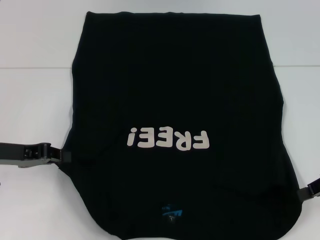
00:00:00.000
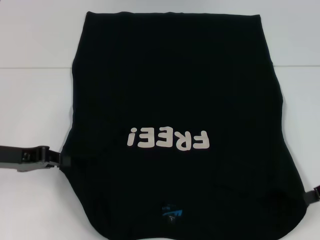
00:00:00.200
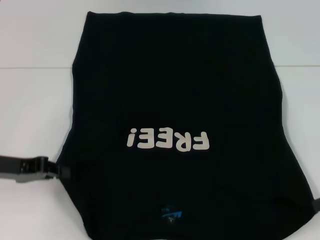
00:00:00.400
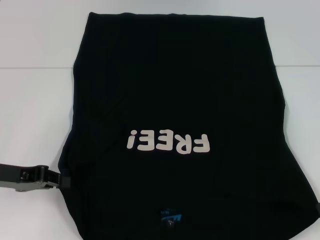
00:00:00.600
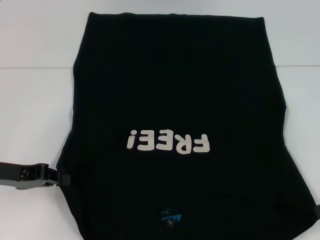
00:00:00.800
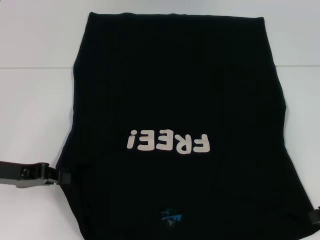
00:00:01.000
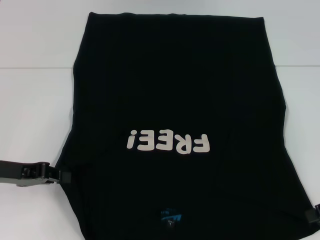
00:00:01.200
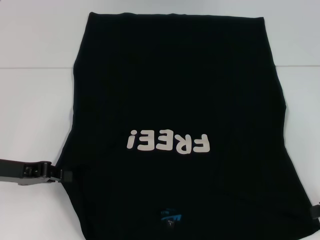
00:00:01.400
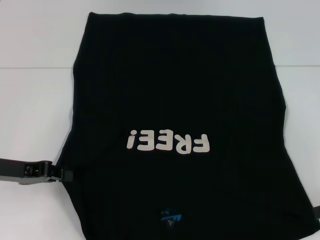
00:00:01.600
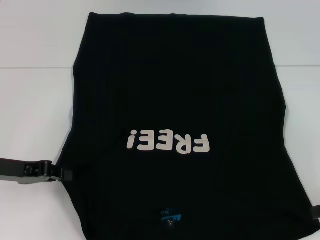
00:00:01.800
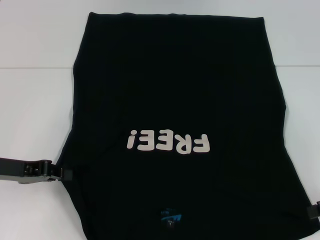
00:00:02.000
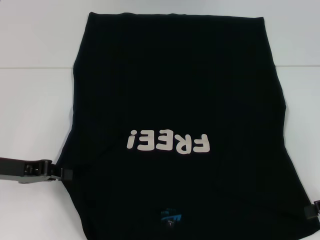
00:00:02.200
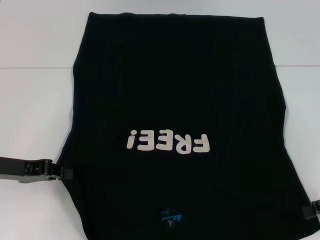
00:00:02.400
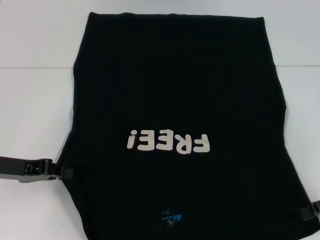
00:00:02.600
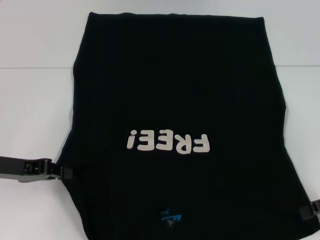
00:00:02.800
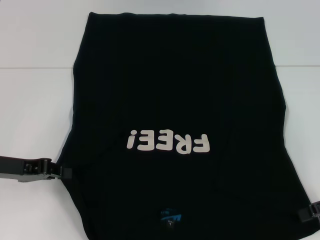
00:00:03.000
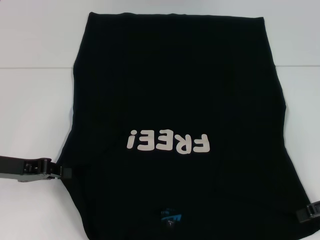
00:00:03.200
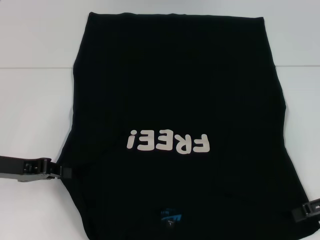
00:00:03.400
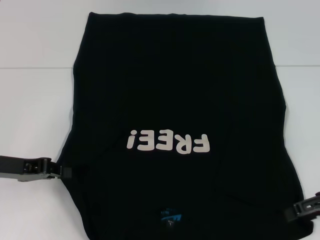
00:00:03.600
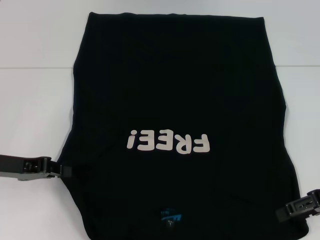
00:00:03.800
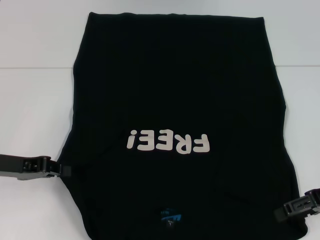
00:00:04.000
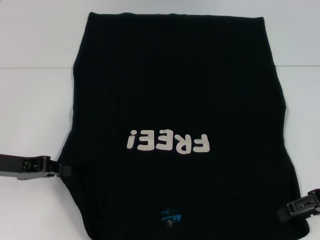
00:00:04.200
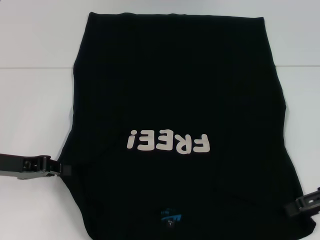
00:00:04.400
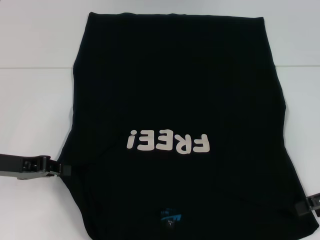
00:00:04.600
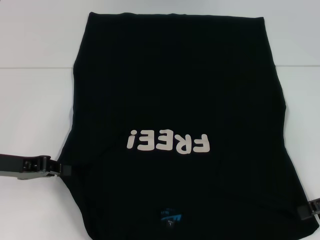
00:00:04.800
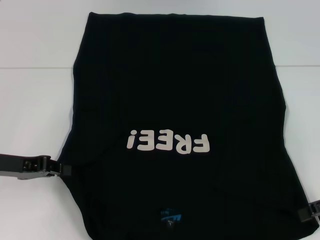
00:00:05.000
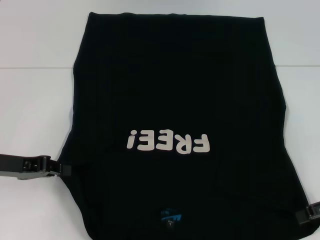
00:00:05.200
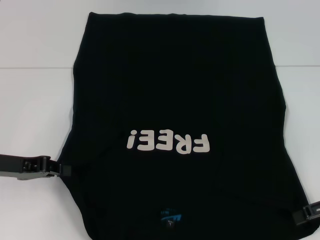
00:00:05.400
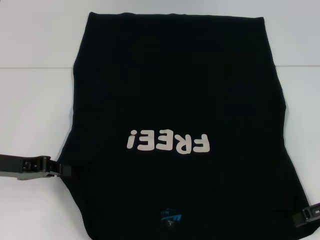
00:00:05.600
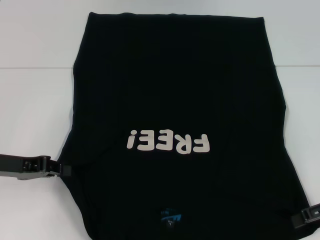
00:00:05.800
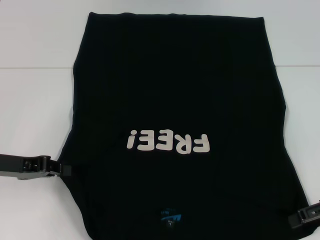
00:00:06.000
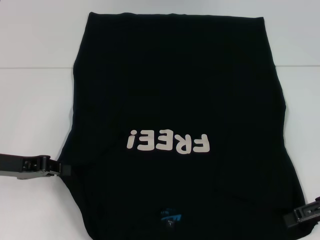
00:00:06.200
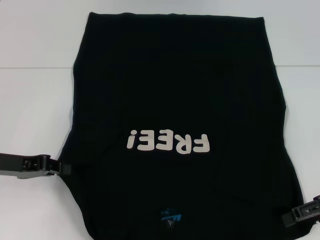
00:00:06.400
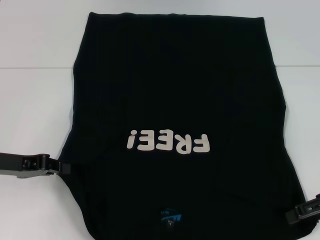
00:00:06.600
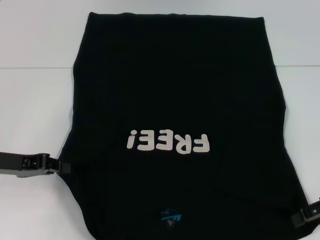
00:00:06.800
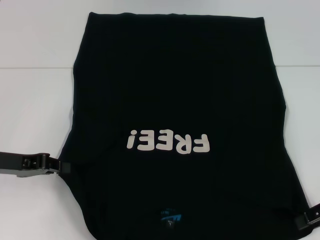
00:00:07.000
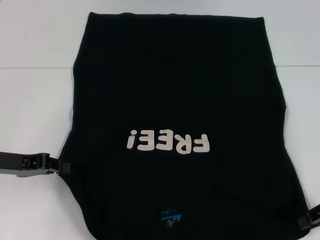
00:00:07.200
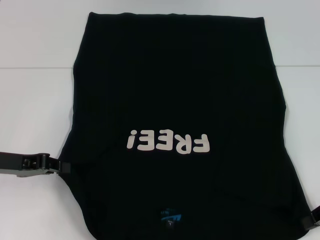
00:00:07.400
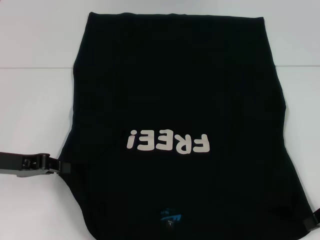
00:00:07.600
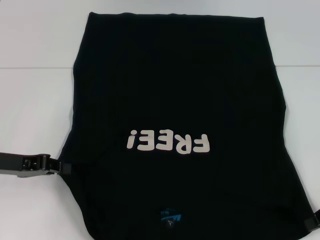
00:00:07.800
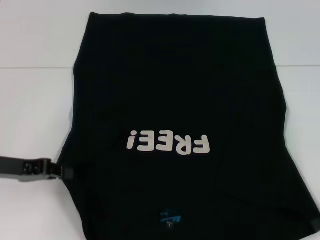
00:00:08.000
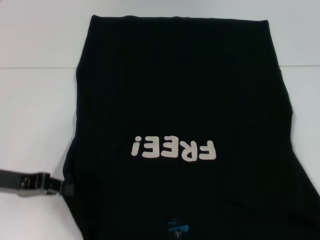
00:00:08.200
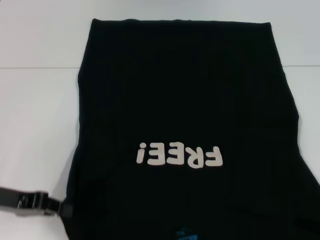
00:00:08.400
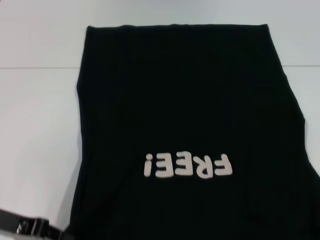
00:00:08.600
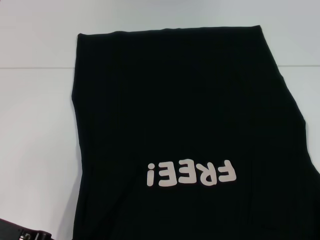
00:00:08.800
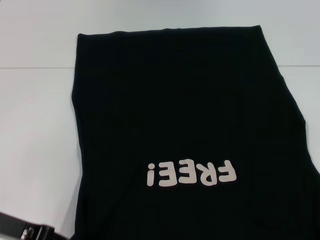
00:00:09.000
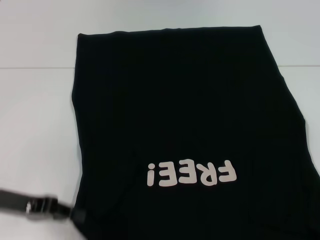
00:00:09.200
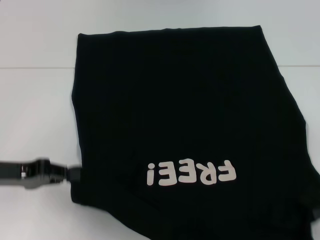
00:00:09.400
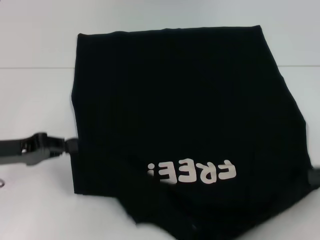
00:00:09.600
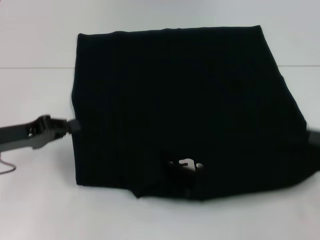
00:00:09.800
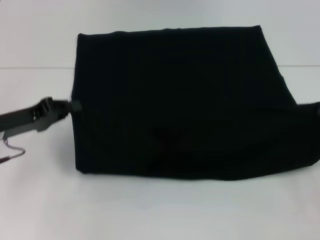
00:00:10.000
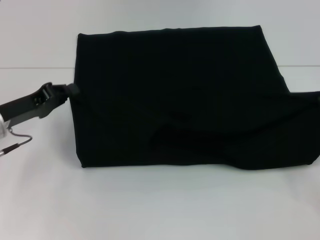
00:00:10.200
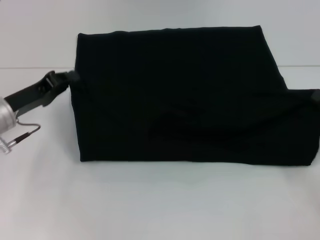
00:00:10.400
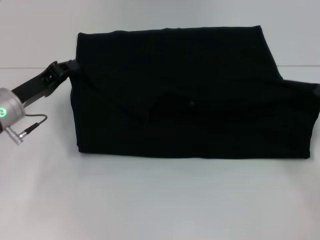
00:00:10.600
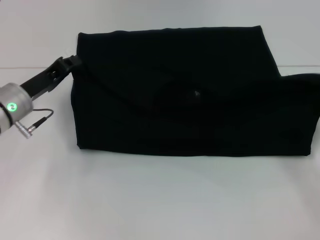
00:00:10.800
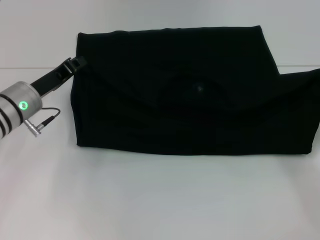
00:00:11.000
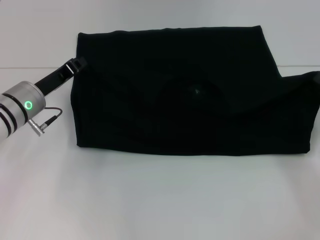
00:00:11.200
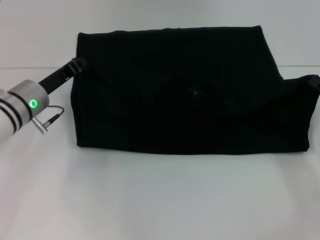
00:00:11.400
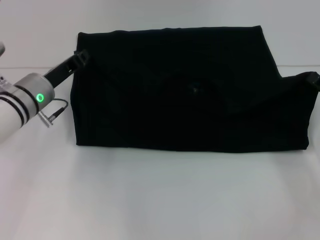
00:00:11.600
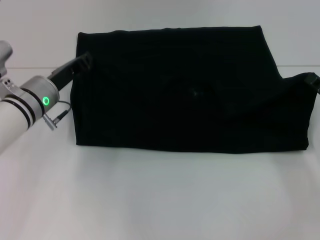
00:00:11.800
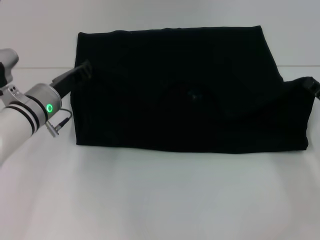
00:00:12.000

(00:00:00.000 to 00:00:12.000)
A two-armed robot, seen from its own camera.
Step, 00:00:00.000 - 00:00:07.800: Grab the bottom right corner with your right hand.
00:00:00.000 - 00:00:01.600: The right gripper ends up about 5 cm from where it was, and opens up.
00:00:01.600 - 00:00:03.000: The grippers make only small movements.
00:00:03.000 - 00:00:04.400: The grippers move only a little.
00:00:07.600 - 00:00:09.000: The left gripper travels backward by about 5 cm.
00:00:09.000 - 00:00:10.400: The left gripper shifts approximately 10 cm forward, while the right gripper shifts some 5 cm downward.
00:00:10.400 - 00:00:12.000: The left gripper moves to the right, some 5 cm. The right gripper shifts by some 5 cm.

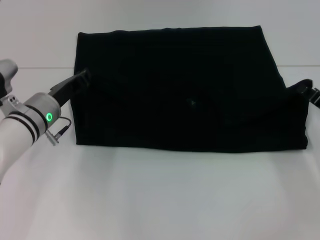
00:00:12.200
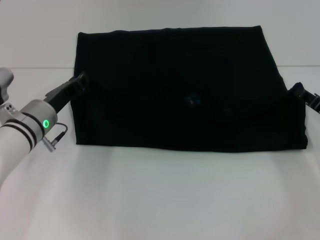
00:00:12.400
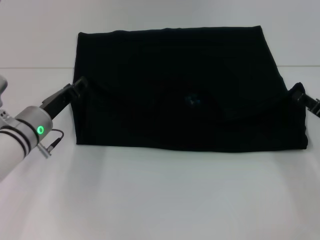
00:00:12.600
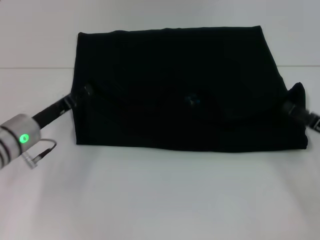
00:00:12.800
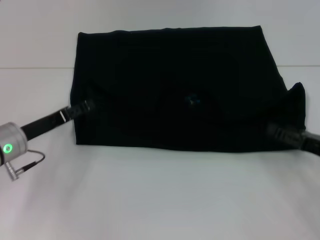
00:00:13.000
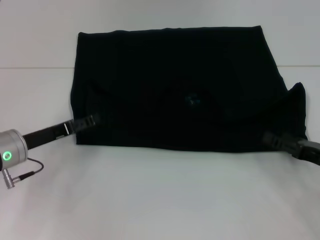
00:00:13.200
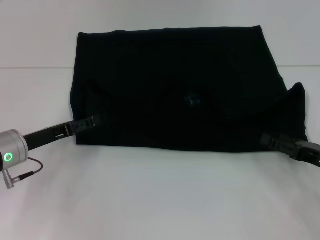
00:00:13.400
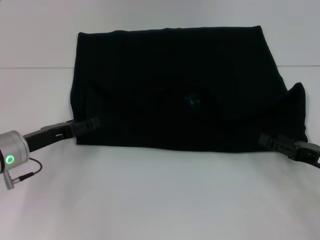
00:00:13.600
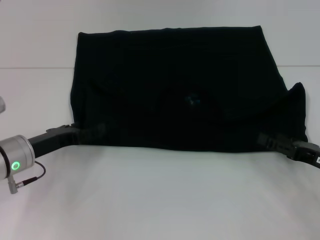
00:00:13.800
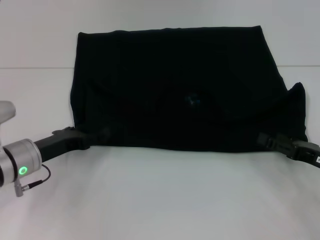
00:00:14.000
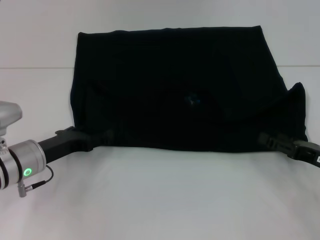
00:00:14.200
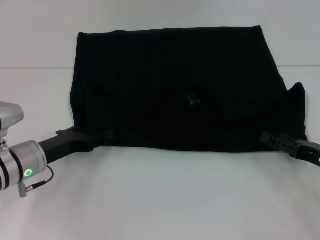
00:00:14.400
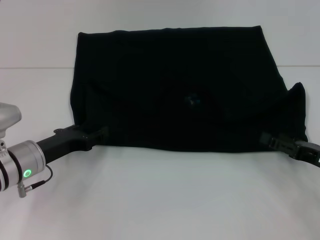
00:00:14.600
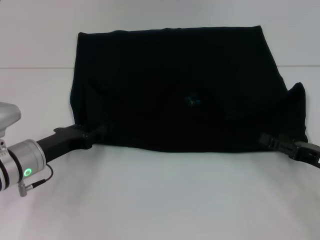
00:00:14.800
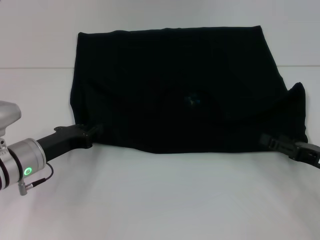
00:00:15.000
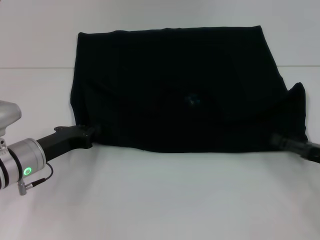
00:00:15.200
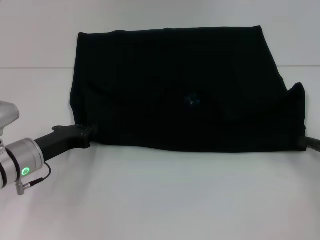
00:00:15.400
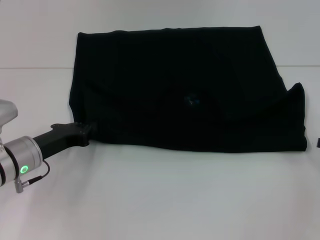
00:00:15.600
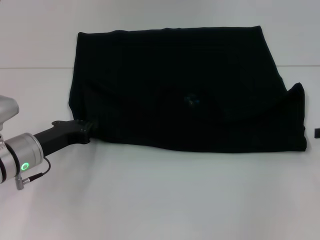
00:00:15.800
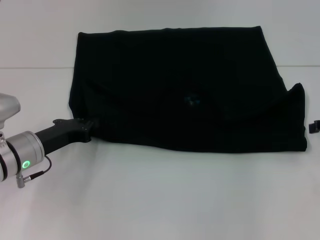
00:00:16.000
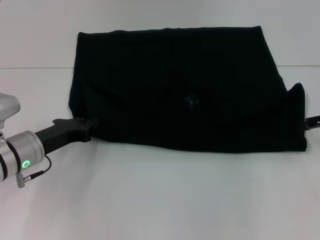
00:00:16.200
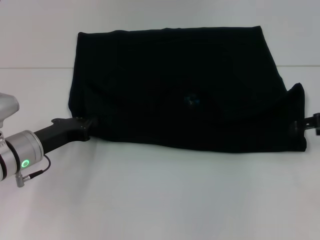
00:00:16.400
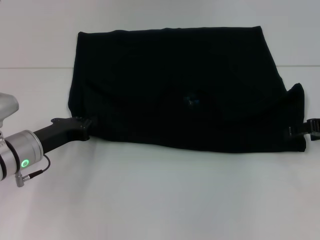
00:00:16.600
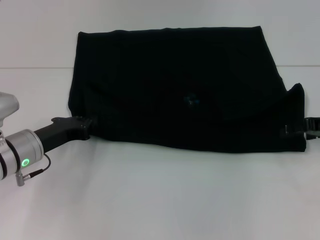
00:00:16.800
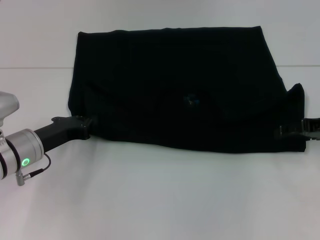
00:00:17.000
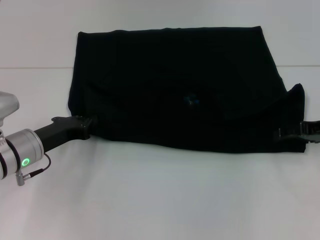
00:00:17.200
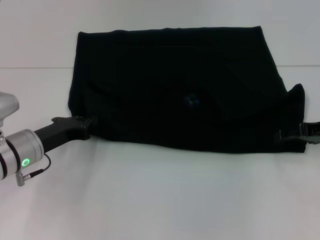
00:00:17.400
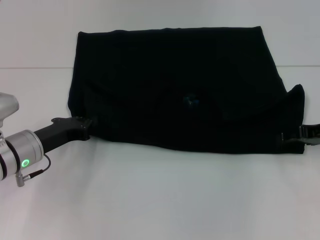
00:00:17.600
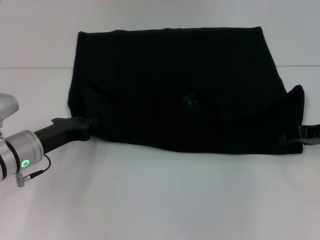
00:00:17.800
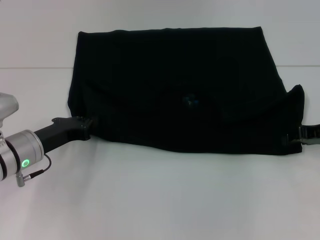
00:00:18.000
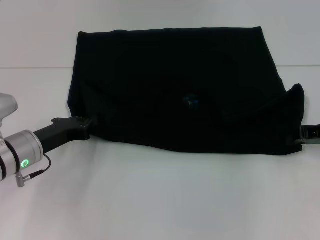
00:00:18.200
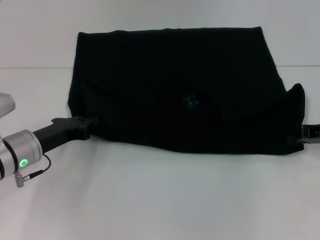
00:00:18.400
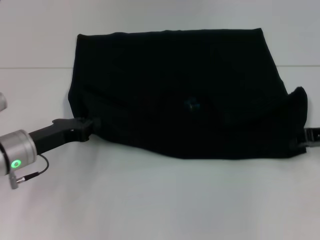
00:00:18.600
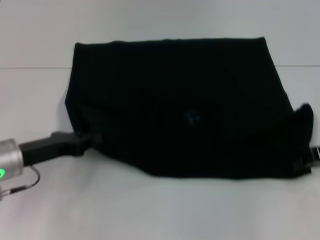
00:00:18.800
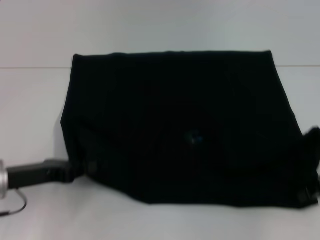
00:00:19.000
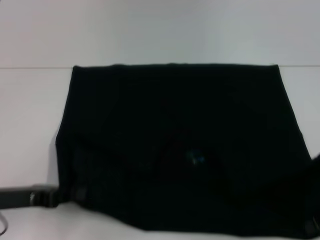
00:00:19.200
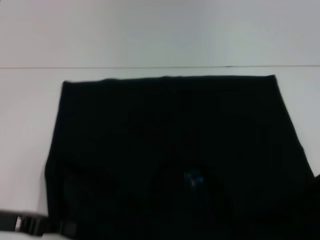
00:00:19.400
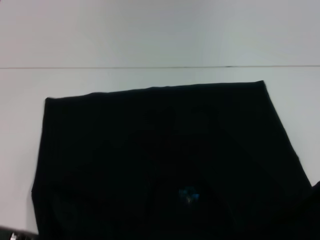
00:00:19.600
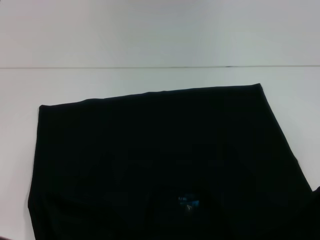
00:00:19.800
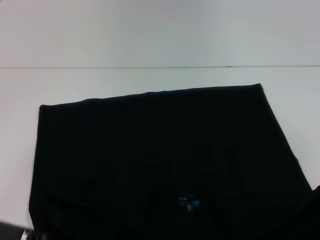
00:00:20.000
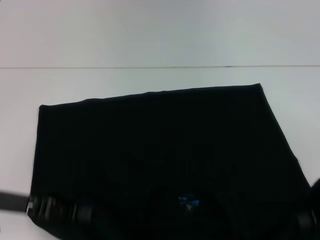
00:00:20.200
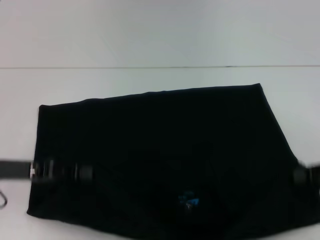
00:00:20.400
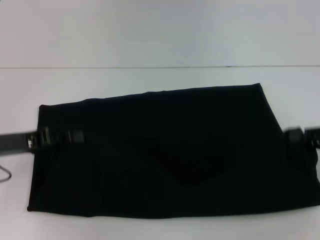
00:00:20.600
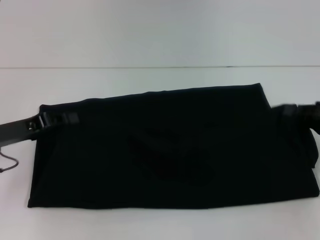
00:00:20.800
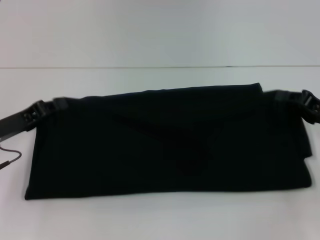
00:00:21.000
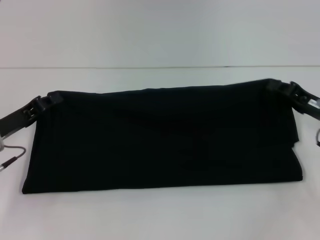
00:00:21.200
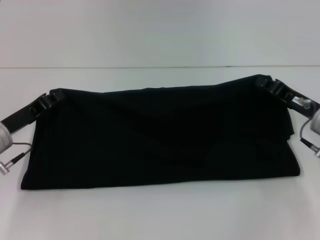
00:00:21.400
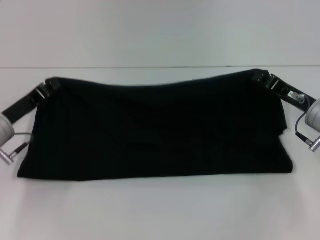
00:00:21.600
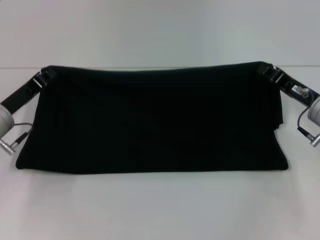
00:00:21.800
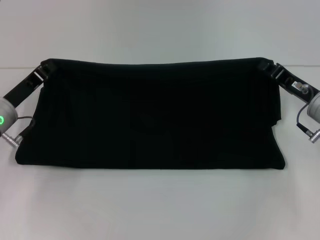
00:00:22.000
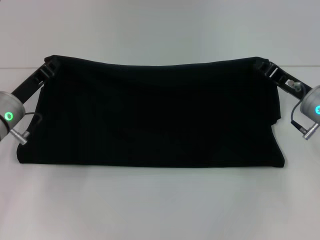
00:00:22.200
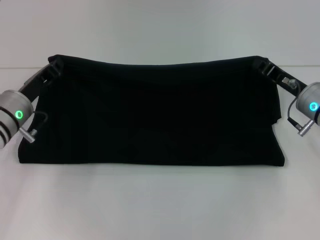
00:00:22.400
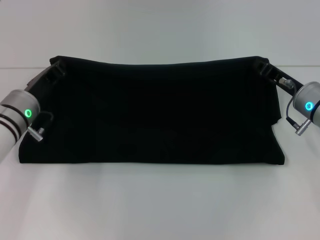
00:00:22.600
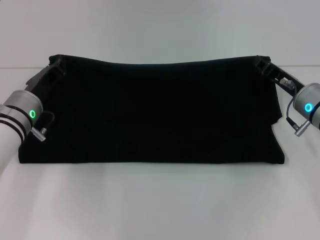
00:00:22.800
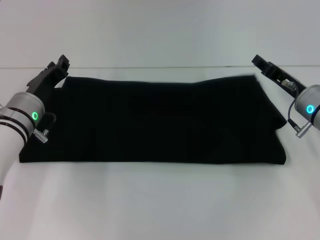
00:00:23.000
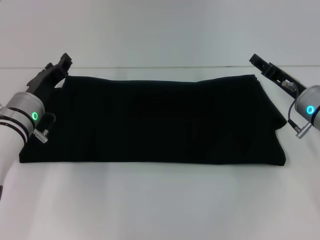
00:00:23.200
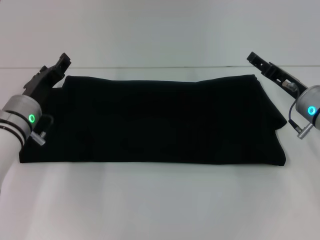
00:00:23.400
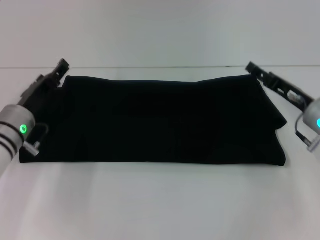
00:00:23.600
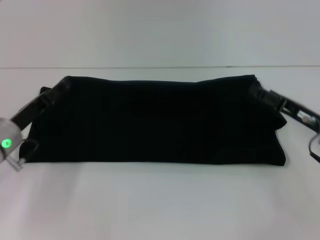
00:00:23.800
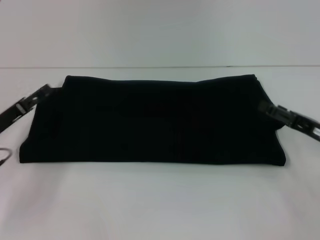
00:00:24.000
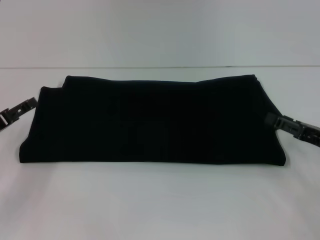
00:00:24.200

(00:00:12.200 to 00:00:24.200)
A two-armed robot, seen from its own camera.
Step, 00:00:12.800 - 00:00:19.800: Pull the clothes with your left hand.
Step, 00:00:12.800 - 00:00:19.800: Pull the clothes with your right hand.
Step, 00:00:20.000 - 00:00:23.400: Fold the clothes with your right hand.
00:00:12.200 - 00:00:13.800: Both grippers travel together backward, some 5 cm. The right gripper opens up. The left gripper opens.
00:00:13.800 - 00:00:15.200: The left gripper closes up.
00:00:15.200 - 00:00:16.600: The right gripper is displaced forward and upward by approximately 15 cm.
00:00:16.600 - 00:00:18.200: The right gripper closes up.
00:00:18.200 - 00:00:19.800: Both grippers move backward, about 10 cm.
00:00:19.800 - 00:00:21.200: Both grippers travel together forward, about 10 cm.
00:00:21.200 - 00:00:22.600: The right gripper goes some 5 cm to the left. Meanwhile the left gripper shifts about 10 cm forward and to the right.
00:00:22.600 - 00:00:24.200: The right gripper shifts about 10 cm backward and to the right, and opens up; the left gripper is displaced to the left and backward by about 15 cm, and opens its fingers.
